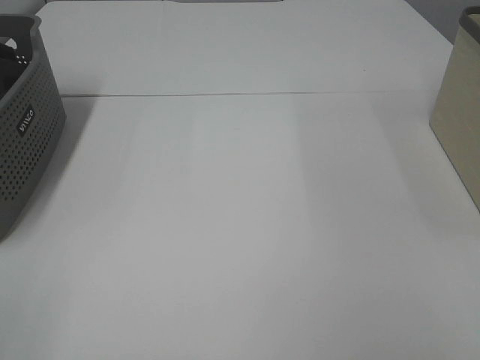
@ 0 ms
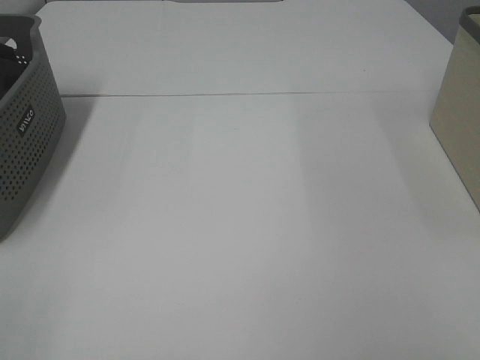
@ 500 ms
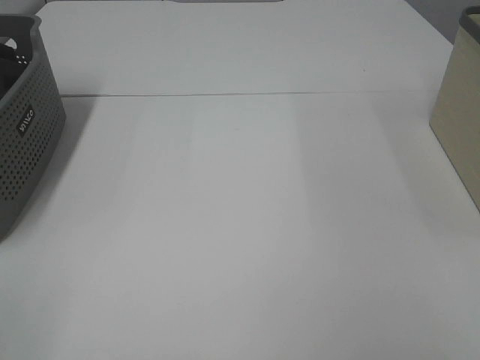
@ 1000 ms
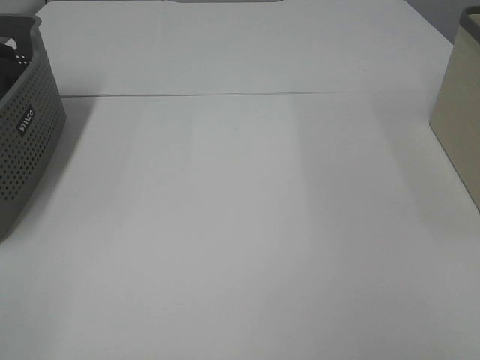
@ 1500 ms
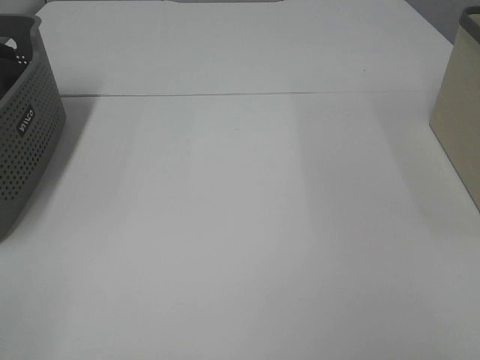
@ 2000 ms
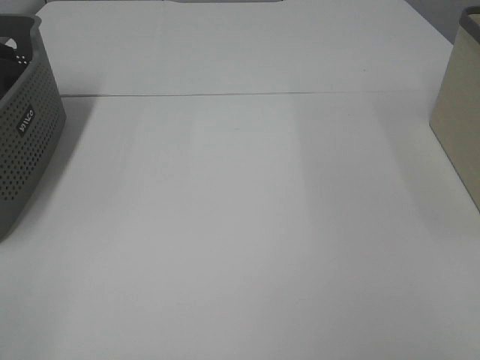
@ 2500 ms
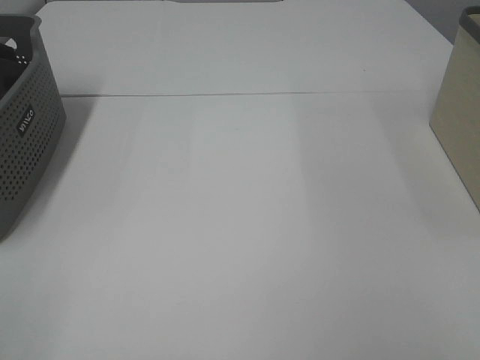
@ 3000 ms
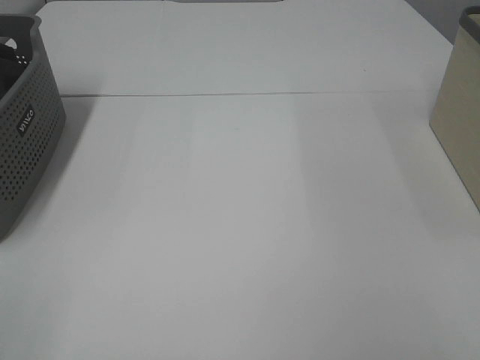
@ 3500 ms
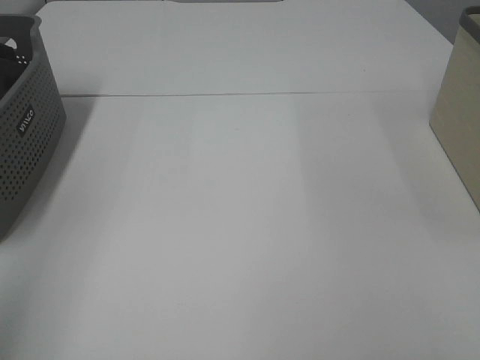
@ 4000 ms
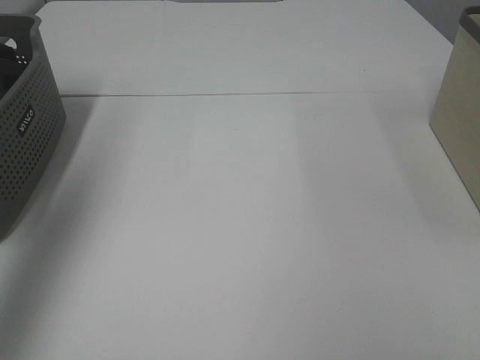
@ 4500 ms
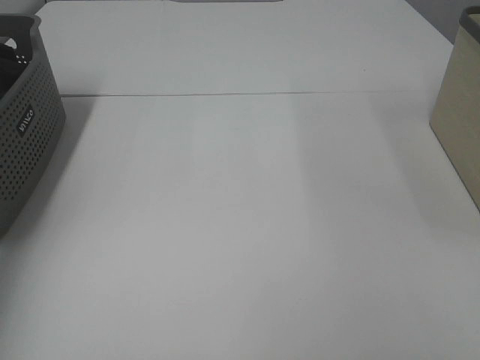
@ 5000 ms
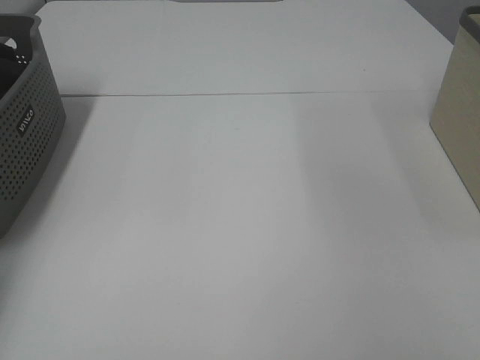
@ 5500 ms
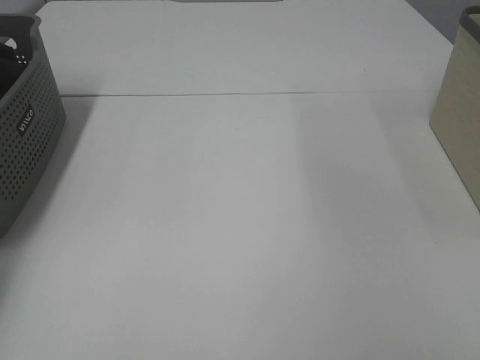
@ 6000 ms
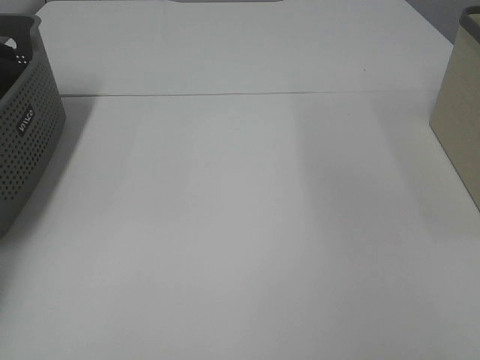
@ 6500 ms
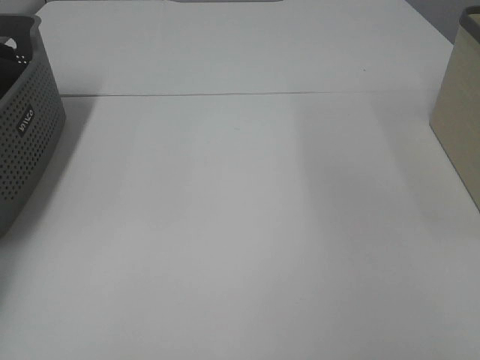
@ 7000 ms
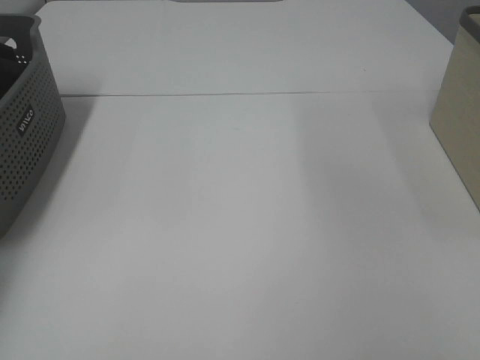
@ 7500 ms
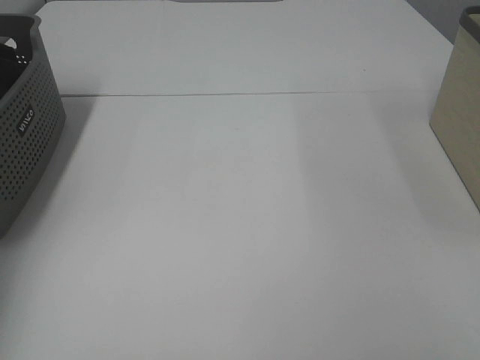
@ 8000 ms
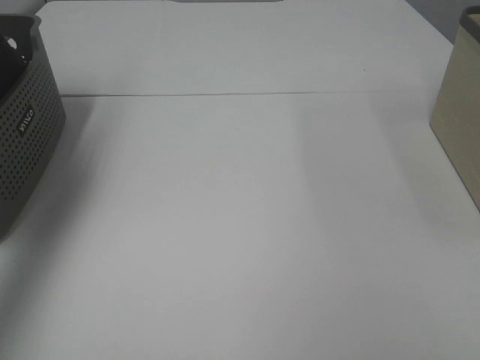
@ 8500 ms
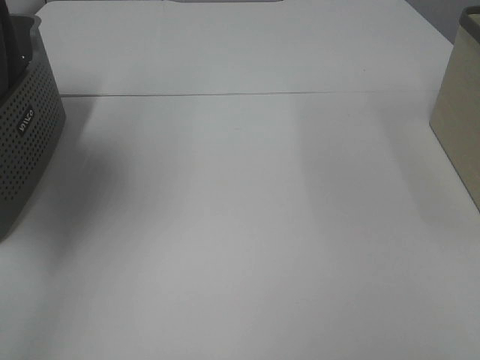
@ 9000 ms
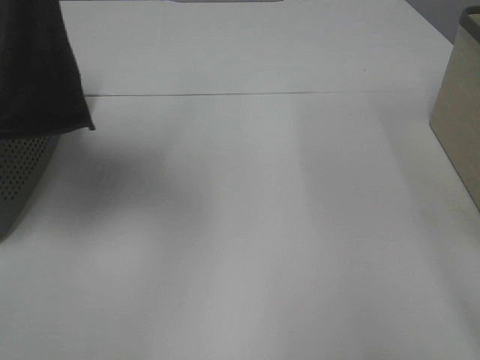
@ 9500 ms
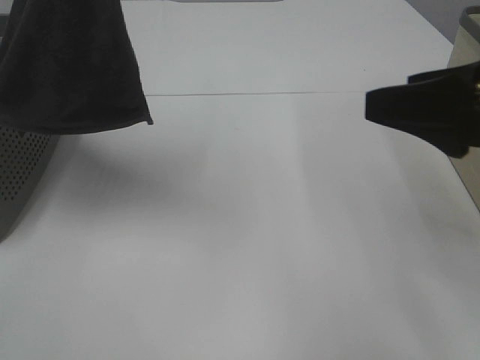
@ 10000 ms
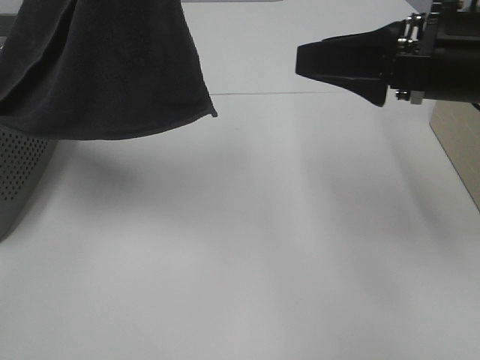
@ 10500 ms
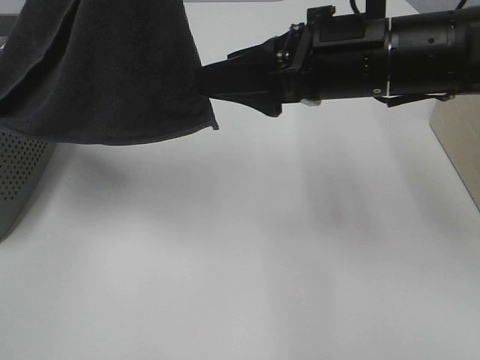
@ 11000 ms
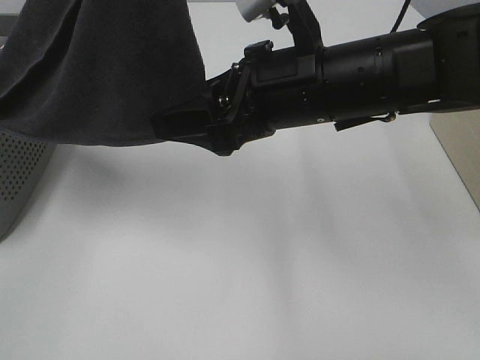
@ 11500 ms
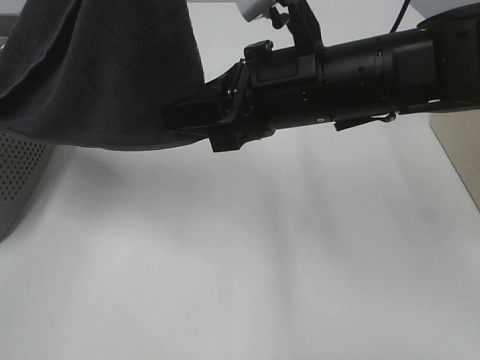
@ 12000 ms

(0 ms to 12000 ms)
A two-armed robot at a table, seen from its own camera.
Task of the whole recording: Remove the towel and place it.
0 ms - 2000 ms: The two grippers keep their place.
4000 ms - 6000 ms: The left gripper travels forward and downward by some 40 cm.
8000 ms - 10000 ms: The left gripper is displaced to the right, backward and upward by approximately 35 cm. Meanwhile the right gripper travels forward by about 20 cm.
10000 ms - 12000 ms: The right gripper goes approximately 15 cm to the left and forward, and closes its fingers.

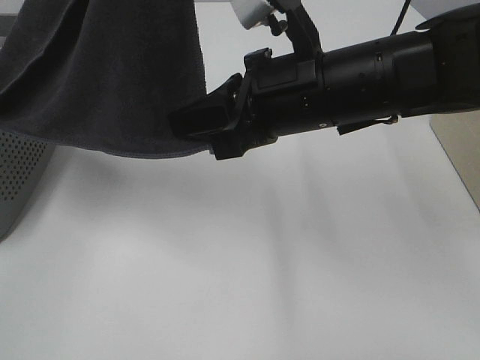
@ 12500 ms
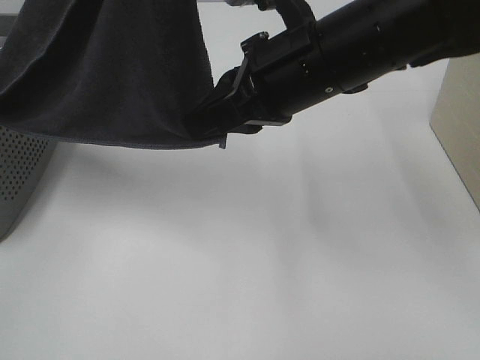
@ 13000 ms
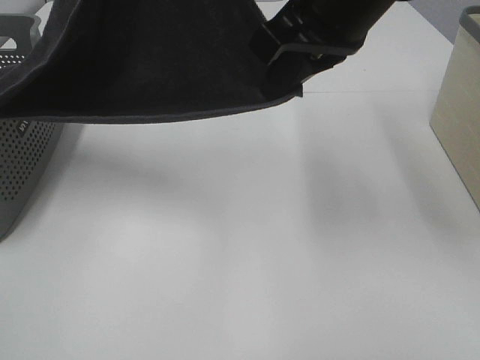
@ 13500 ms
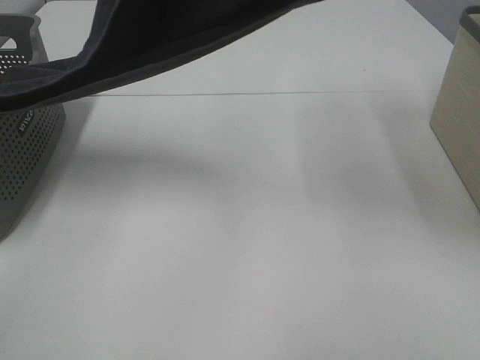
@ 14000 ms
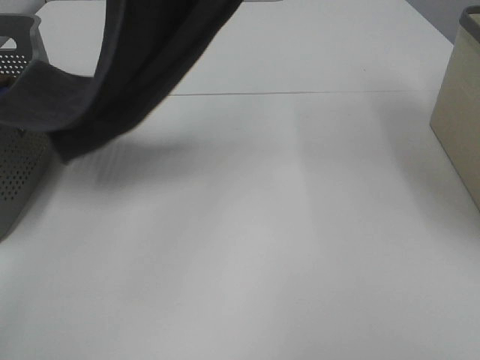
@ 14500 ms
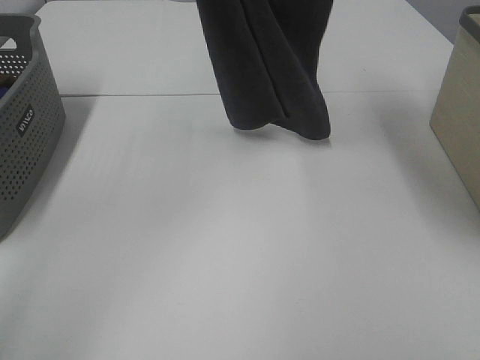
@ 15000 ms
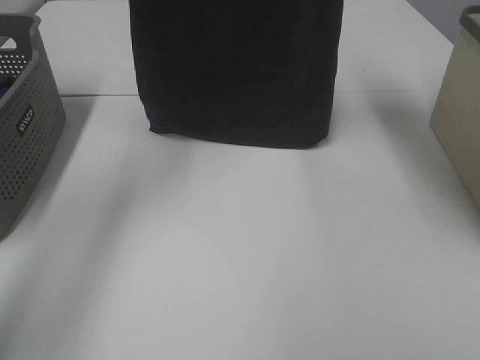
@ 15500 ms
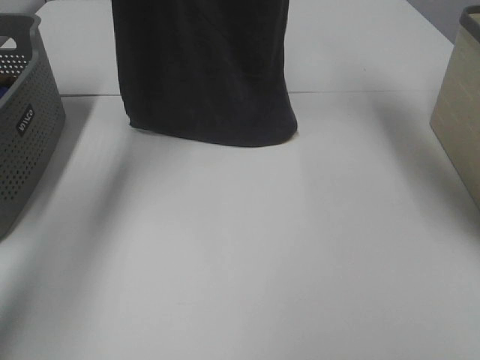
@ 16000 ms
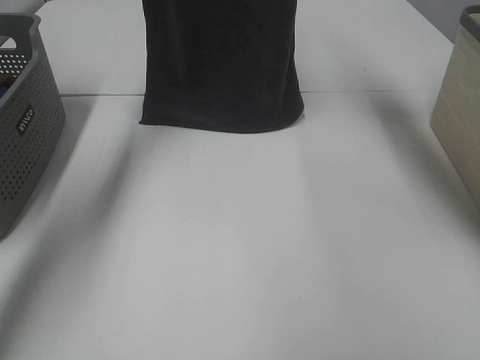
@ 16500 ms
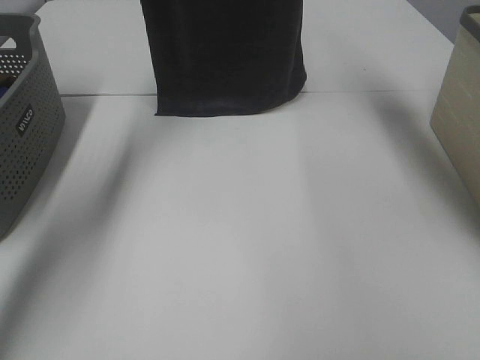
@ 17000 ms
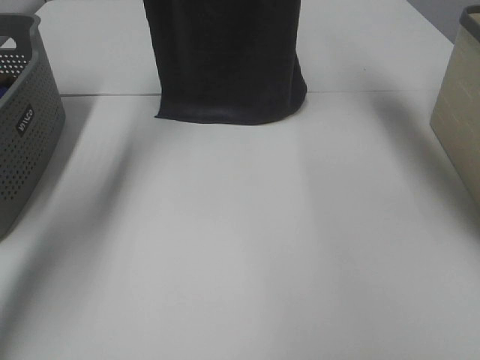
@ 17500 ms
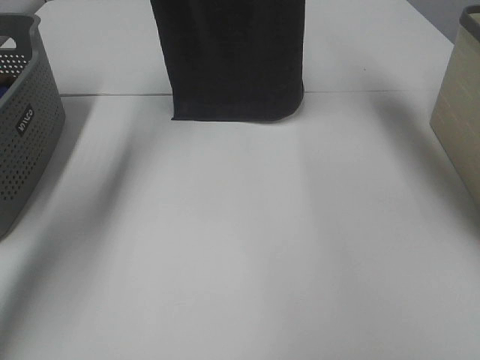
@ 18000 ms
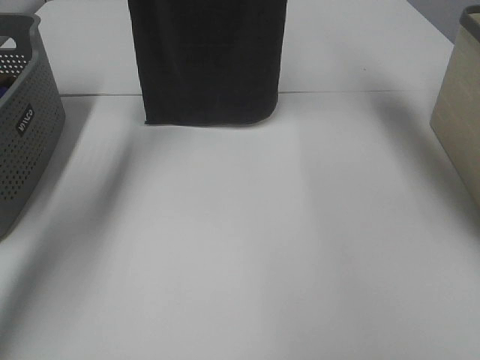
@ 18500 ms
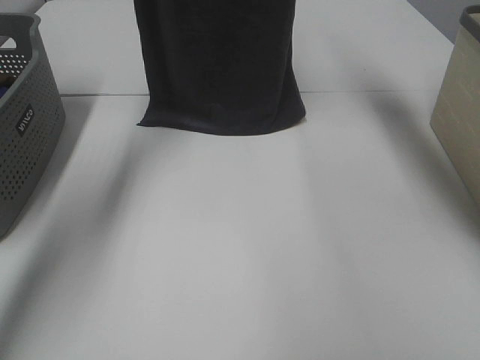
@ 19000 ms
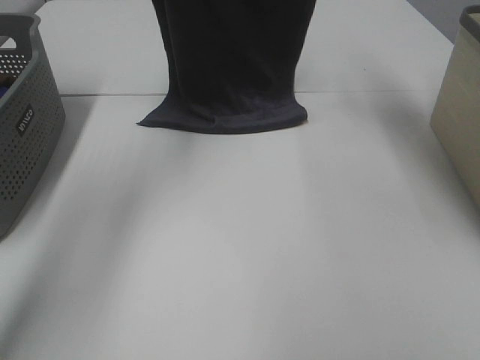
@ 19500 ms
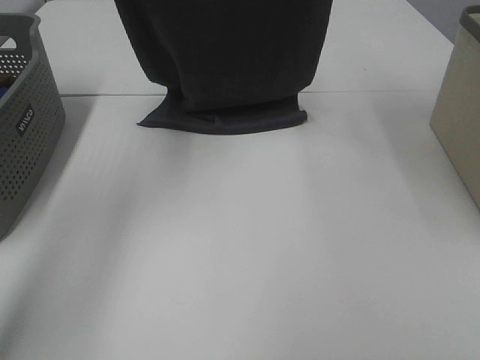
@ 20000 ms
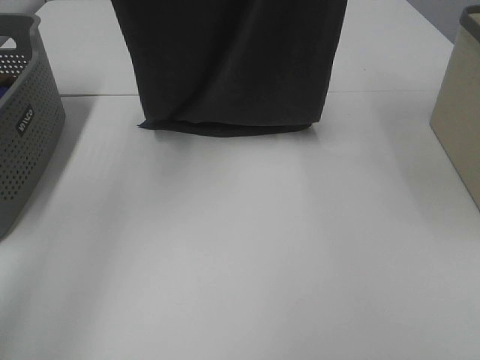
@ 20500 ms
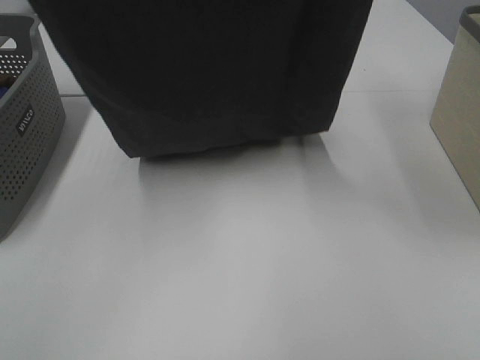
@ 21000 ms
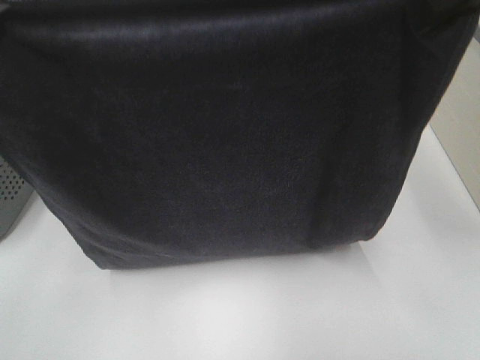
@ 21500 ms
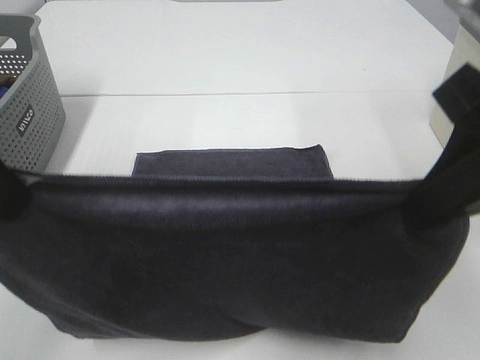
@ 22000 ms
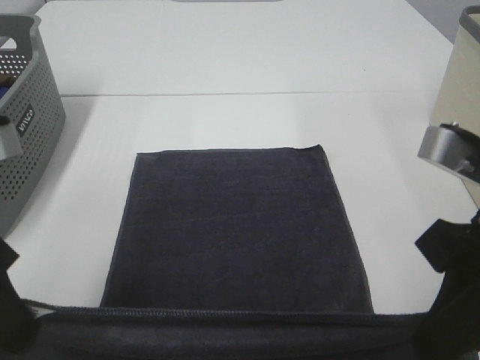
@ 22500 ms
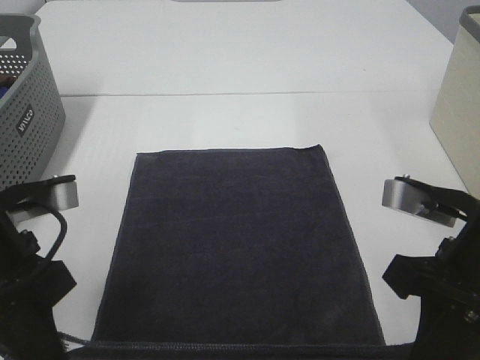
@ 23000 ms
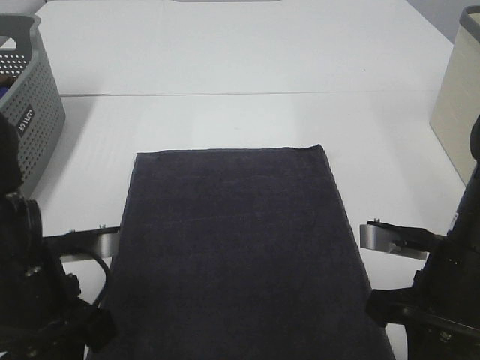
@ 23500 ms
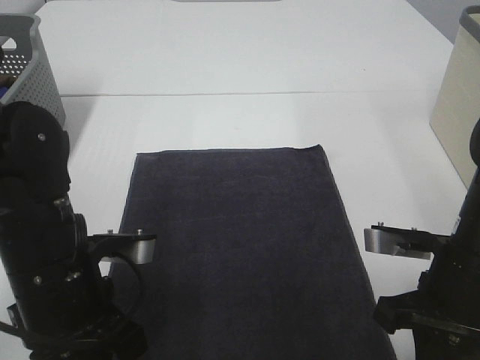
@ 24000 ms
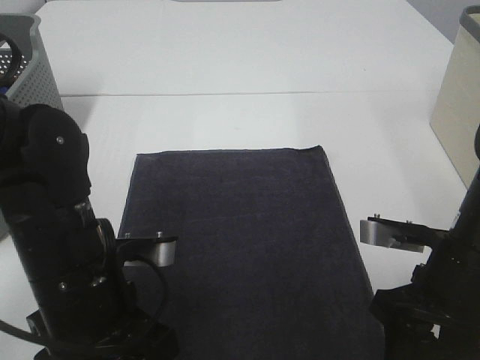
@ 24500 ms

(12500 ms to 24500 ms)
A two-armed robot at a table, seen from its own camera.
Task of the whole recording: Remove the towel and place it.
Step, 13000 ms - 19500 ms: Left hand: spread the grey towel flat on the table.
Step, 13000 ms - 19500 ms: Right hand: spread the grey towel flat on the table.
12500 ms - 14500 ms: The left gripper heads forward, covering approximately 10 cm; the right gripper heads upward, covering some 25 cm.
14500 ms - 16500 ms: The left gripper shifts about 20 cm forward and downward. The right gripper heads forward, covering some 15 cm.
16500 ms - 18500 ms: The grippers stay close to where they were, moving slightly.
18500 ms - 20500 ms: Both grippers move backward, roughly 15 cm.
20500 ms - 22500 ms: The two grippers go approximately 35 cm downward and backward.
22500 ms - 24500 ms: The left gripper is displaced downward and to the right by roughly 15 cm, and opens up, while the right gripper shifts roughly 10 cm downward, and opens its fingers.

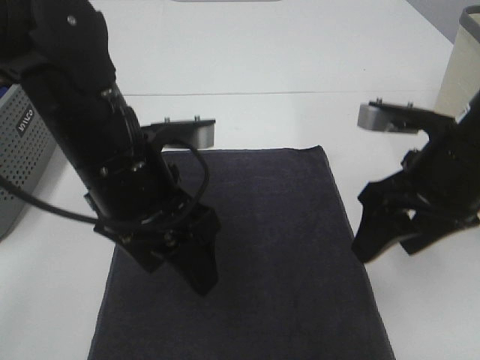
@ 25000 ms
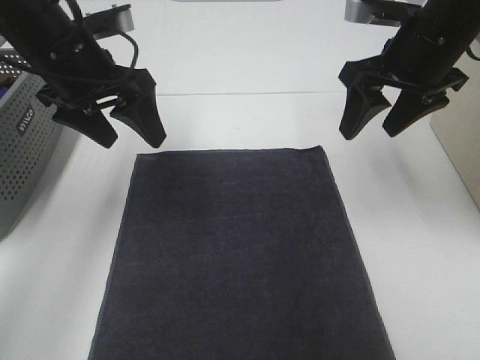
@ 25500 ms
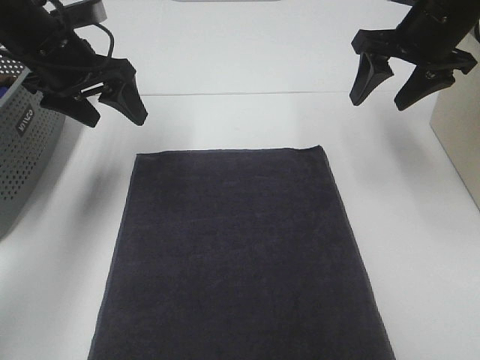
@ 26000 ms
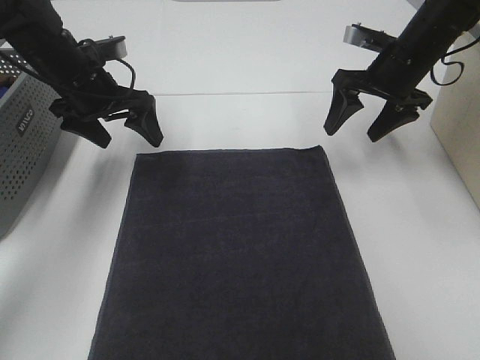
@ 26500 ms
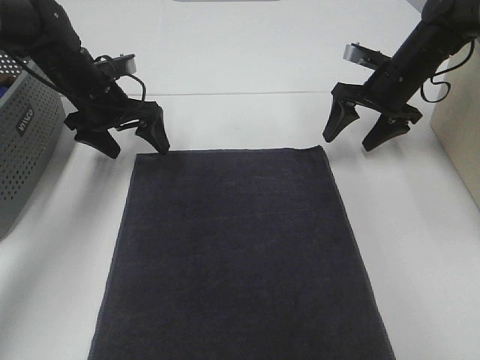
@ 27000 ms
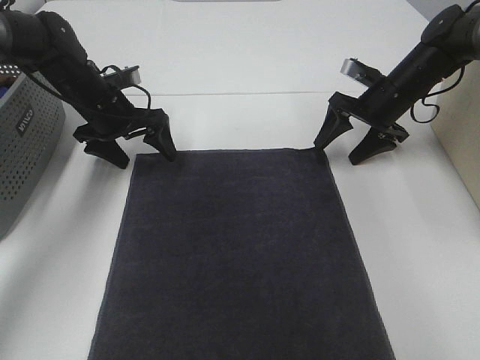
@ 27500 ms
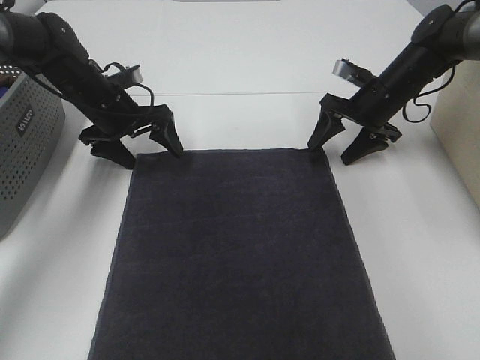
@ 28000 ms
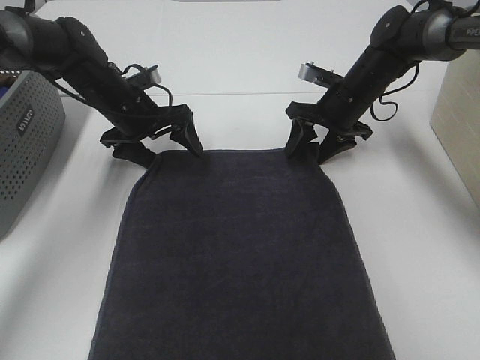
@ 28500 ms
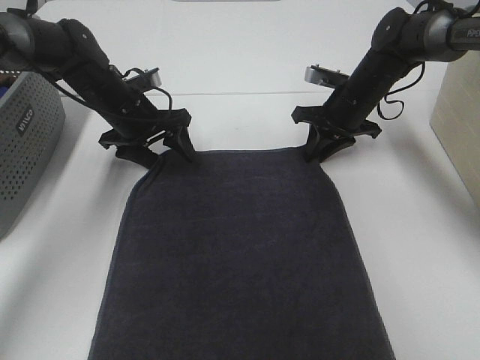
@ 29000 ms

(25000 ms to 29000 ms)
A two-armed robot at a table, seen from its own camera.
Task of the whole recording: Remove the towel and place it.
Step, 25000 ms - 27500 ms: Left hand:adjust the gray towel.
Step, 25000 ms - 27500 ms: Right hand:adjust the gray towel.
25000 ms - 27000 ms: The left gripper shifts roughly 25 cm forward and to the left. Meanwhile the right gripper goes about 25 cm forward.
27000 ms - 29000 ms: The right gripper heads to the left, covering some 5 cm, and closes.
